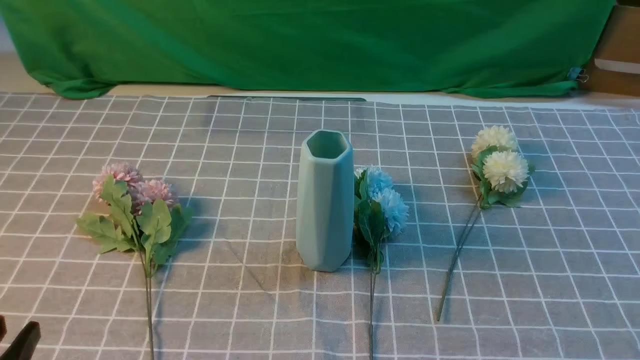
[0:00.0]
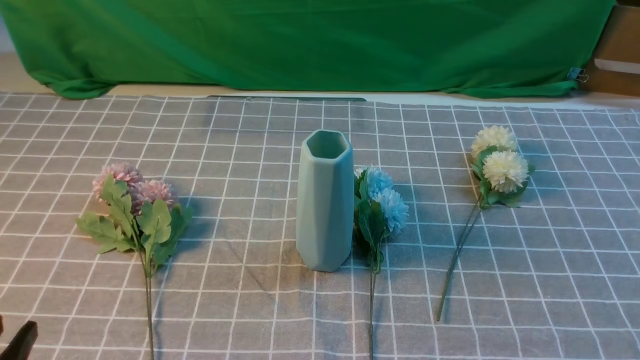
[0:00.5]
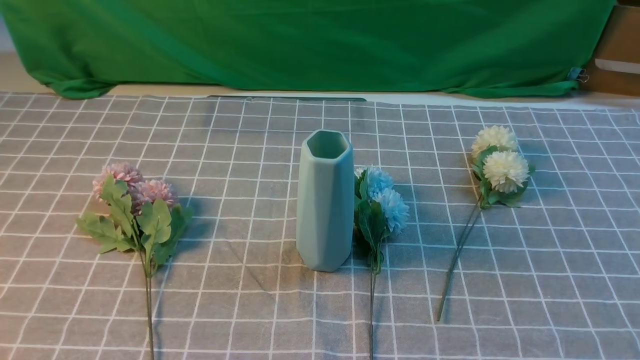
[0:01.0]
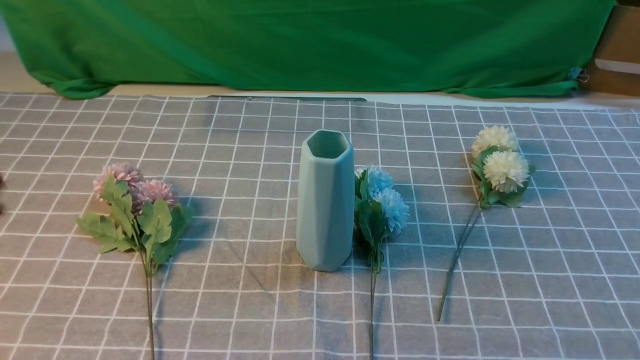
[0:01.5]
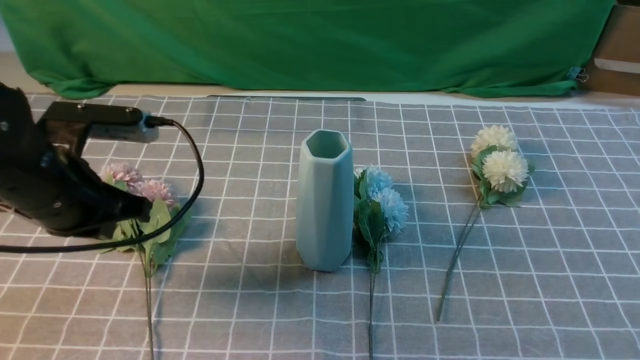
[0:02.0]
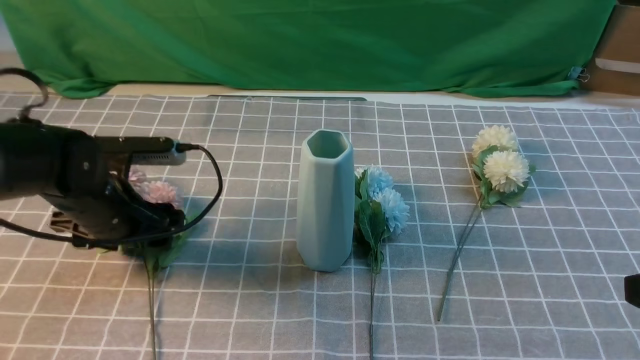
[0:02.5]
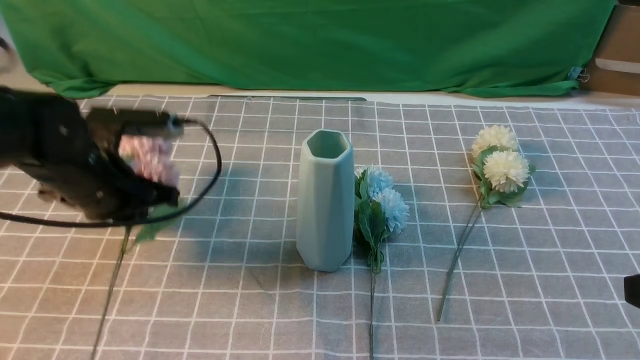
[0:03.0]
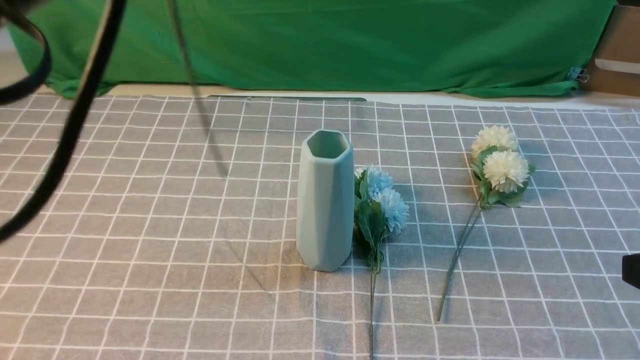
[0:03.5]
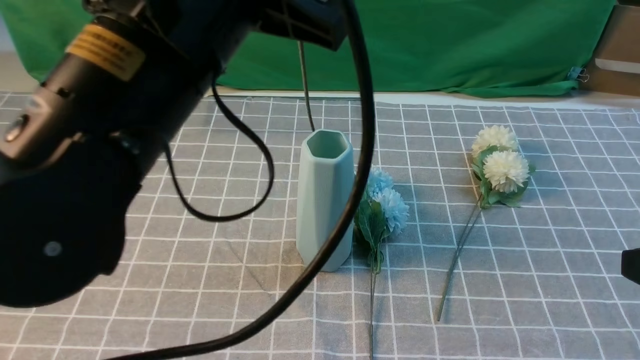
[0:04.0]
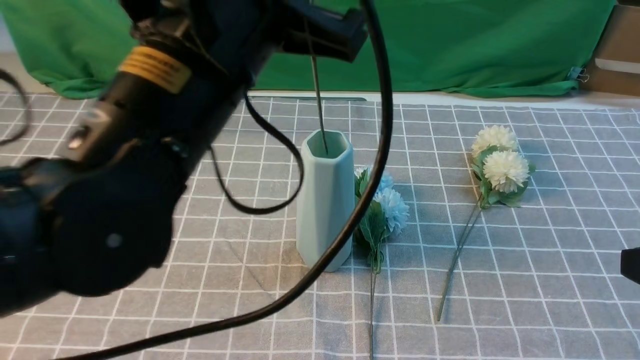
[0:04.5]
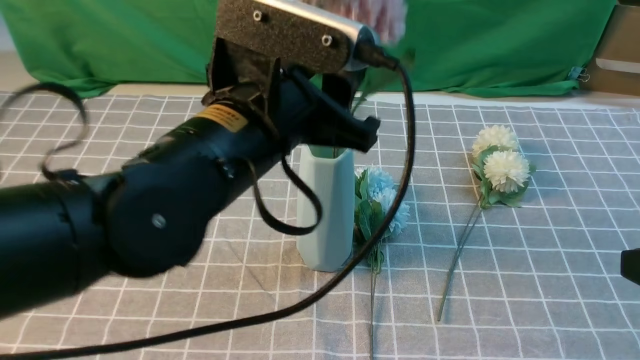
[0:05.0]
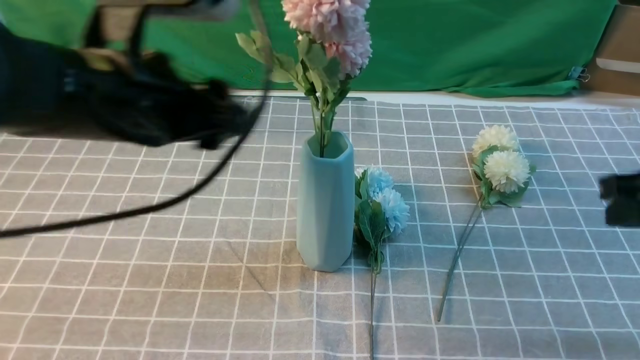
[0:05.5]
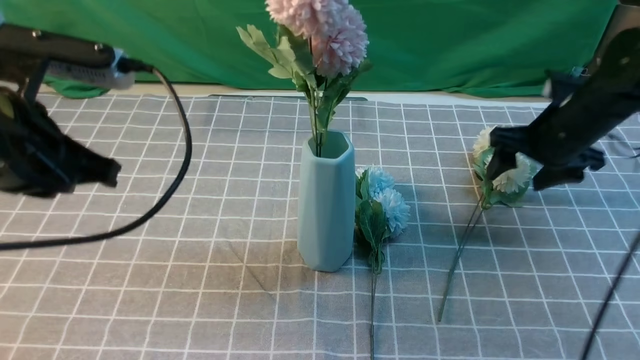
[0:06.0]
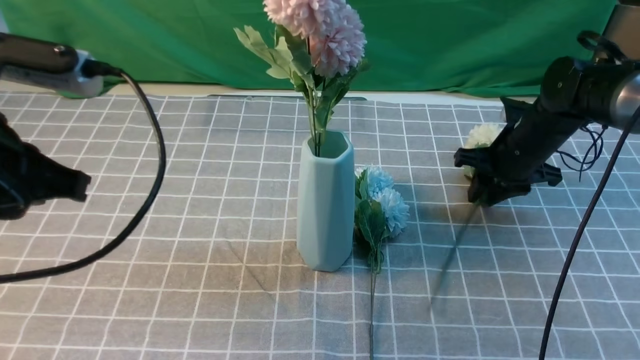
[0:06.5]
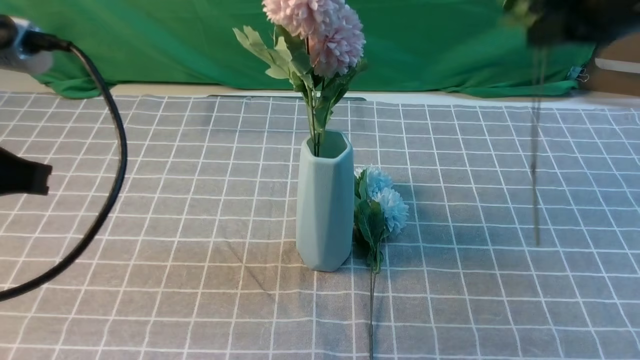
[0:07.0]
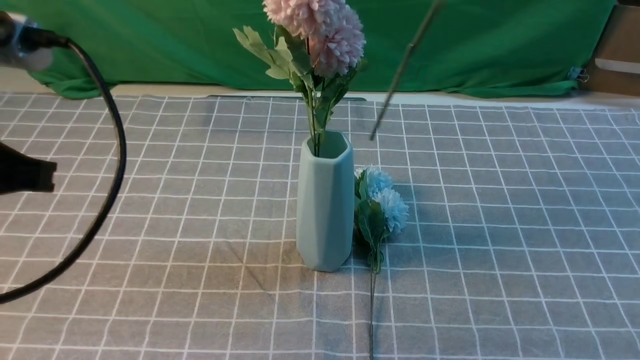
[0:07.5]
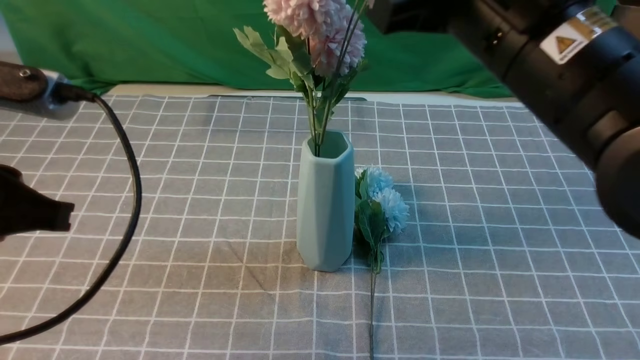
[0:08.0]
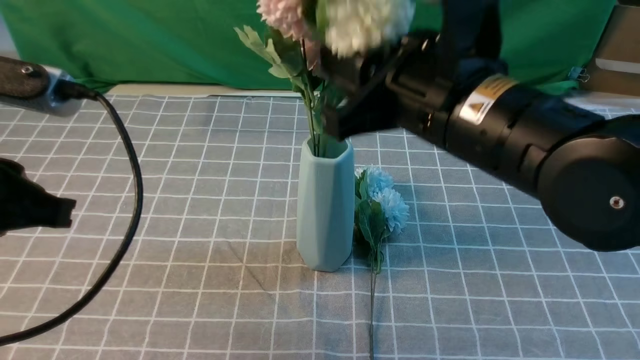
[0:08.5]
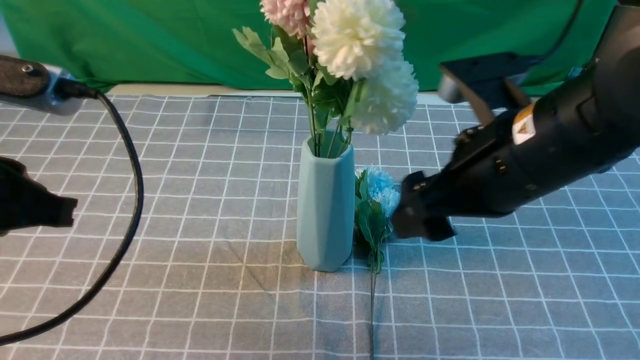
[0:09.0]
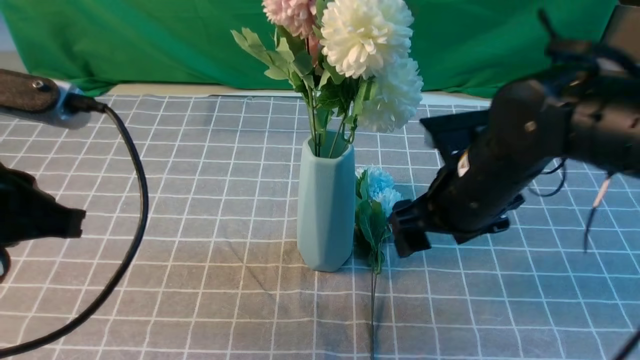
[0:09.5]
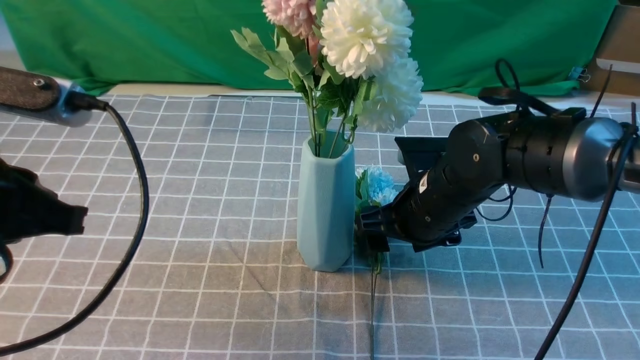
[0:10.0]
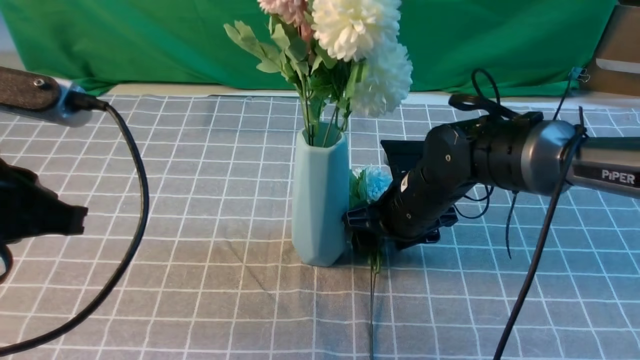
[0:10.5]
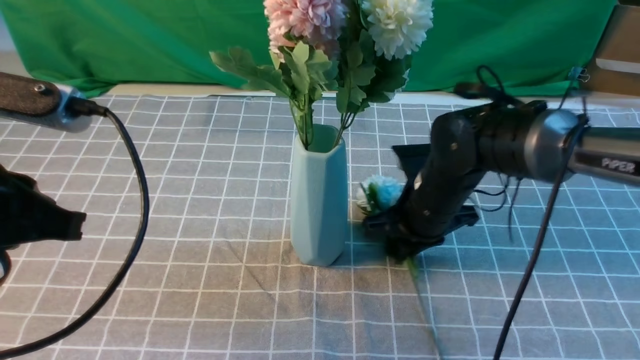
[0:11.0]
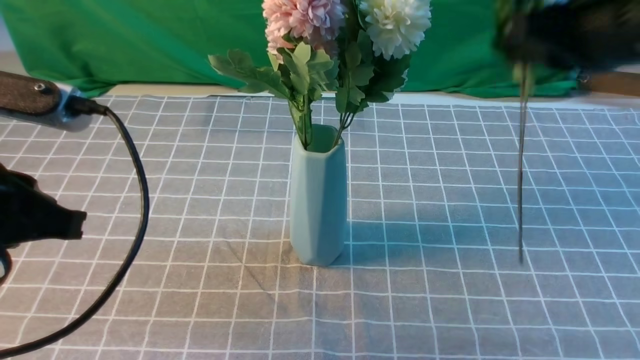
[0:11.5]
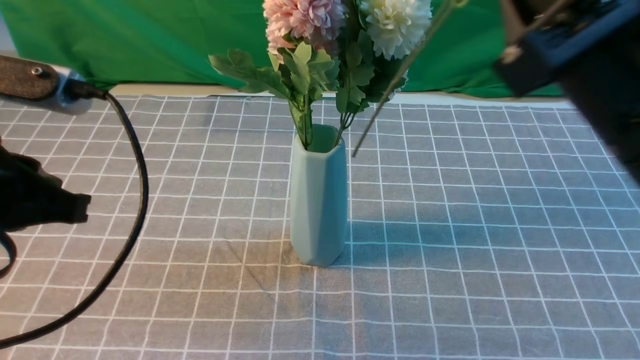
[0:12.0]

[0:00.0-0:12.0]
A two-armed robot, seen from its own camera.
Task of the whole recording: insert the flowers into the vase on the table with the grey tablecloth.
Step, 0:00.0 to 0:02.5: use the left arm to grab a bunch of fresh flowers.
Step, 0:03.0 to 0:05.0: use the left arm to insert the flowers into the vase.
Step, 0:05.5 to 0:06.5: use the right arm to grab a bunch of fresh flowers.
Step, 0:07.0 to 0:08.5: use the right arm to insert the flowers into the vase.
Step, 0:09.0 to 0:11.0: use the right arm to grab a bunch of fresh flowers.
0:00.0 to 0:02.0: The right gripper is displaced upward by approximately 10 cm, while the left gripper goes roughly 25 cm forward, and closes.
0:02.0 to 0:04.0: The left gripper heads upward, to the right and backward, covering about 25 cm, and opens, then closes again. Meanwhile the right gripper is displaced forward by approximately 5 cm.
0:04.0 to 0:06.0: The left gripper shifts roughly 15 cm to the left and downward, and opens, then closes again; the right gripper heads forward, covering some 30 cm, and opens its fingers.
0:06.0 to 0:08.0: The left gripper is displaced backward by some 5 cm, while the right gripper goes some 30 cm upward, backward and to the left, and closes up.
0:08.0 to 0:10.0: The right gripper heads downward and forward, covering roughly 25 cm, and opens its fingers.
0:10.0 to 0:12.0: The right gripper goes approximately 25 cm upward and backward, and closes.

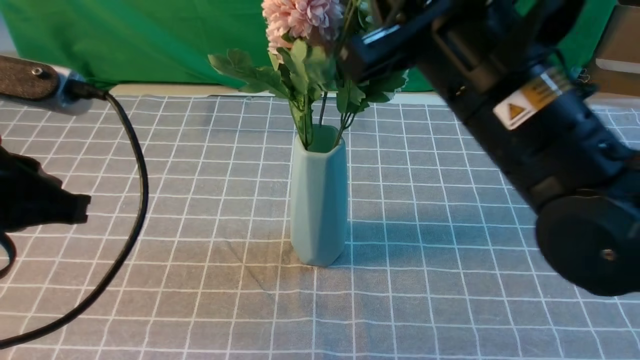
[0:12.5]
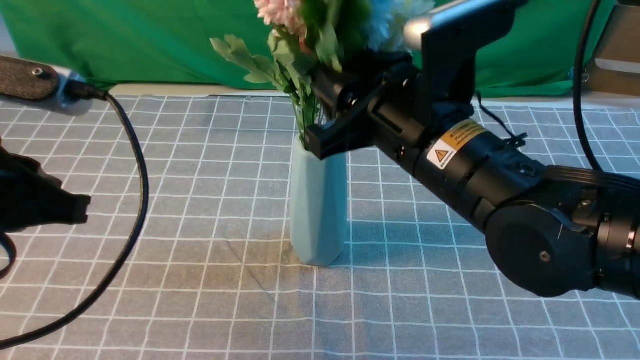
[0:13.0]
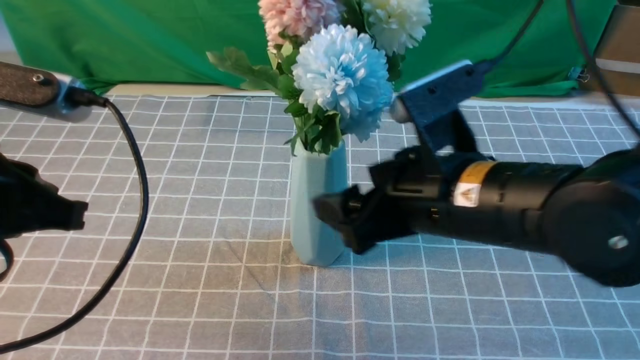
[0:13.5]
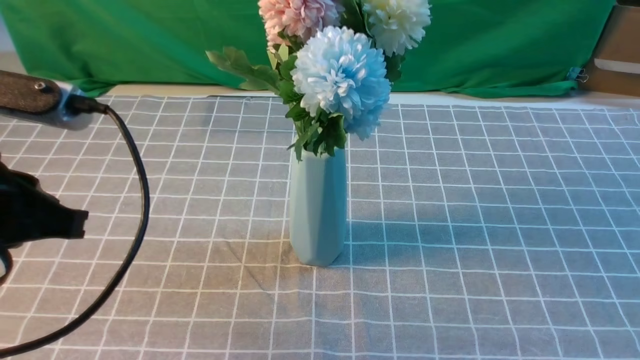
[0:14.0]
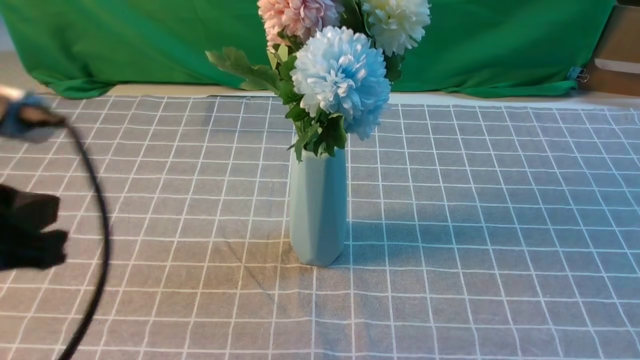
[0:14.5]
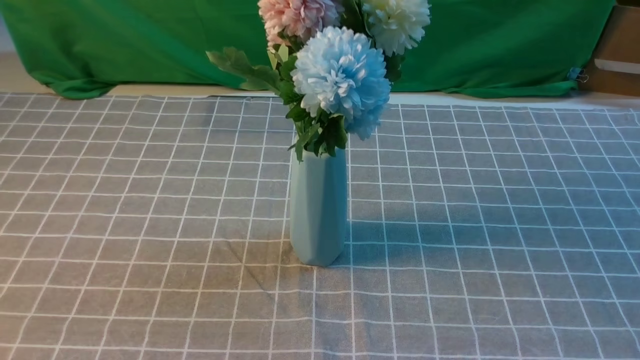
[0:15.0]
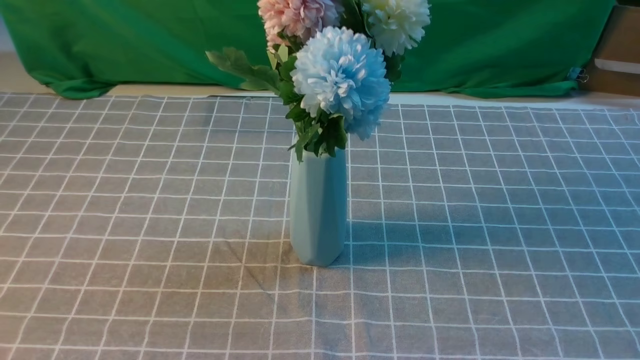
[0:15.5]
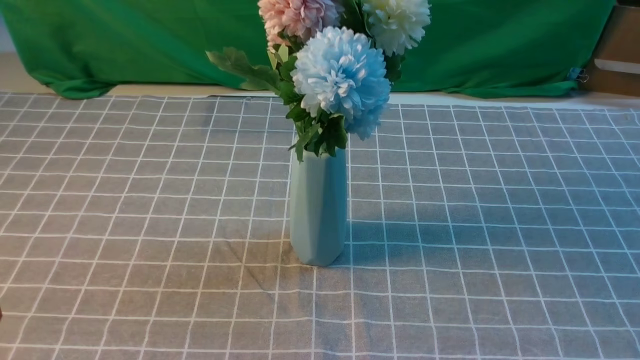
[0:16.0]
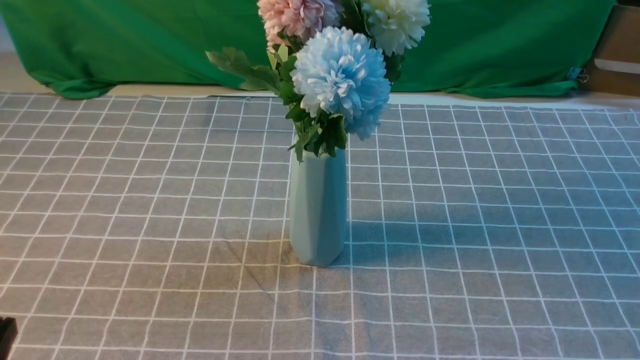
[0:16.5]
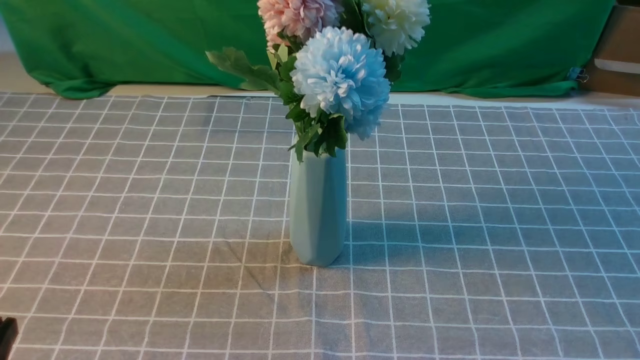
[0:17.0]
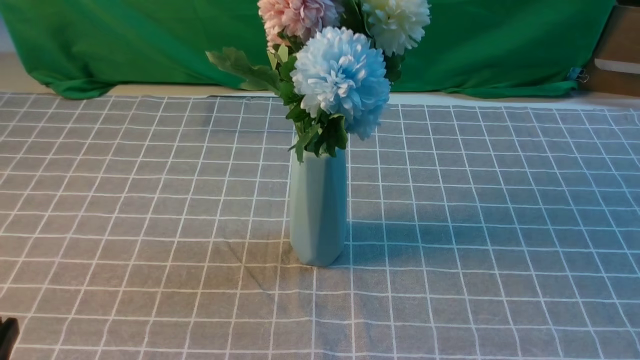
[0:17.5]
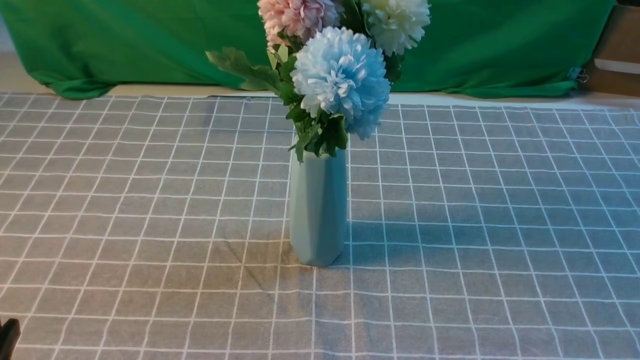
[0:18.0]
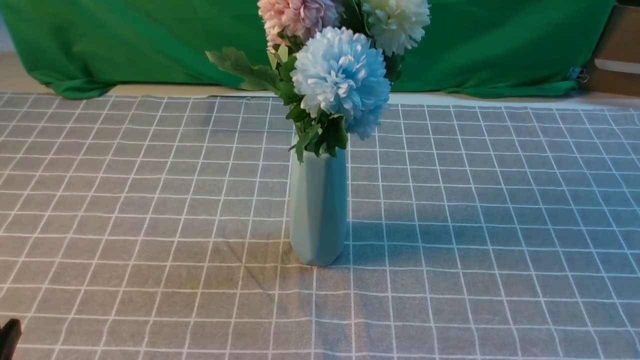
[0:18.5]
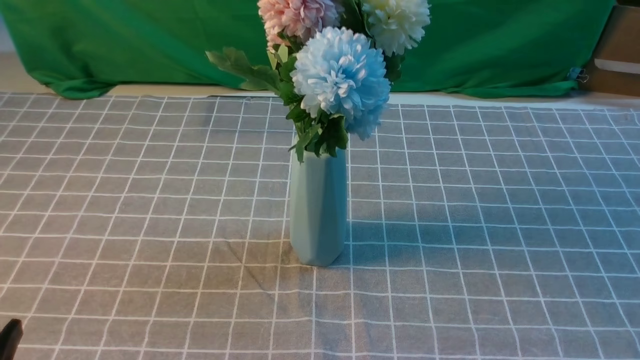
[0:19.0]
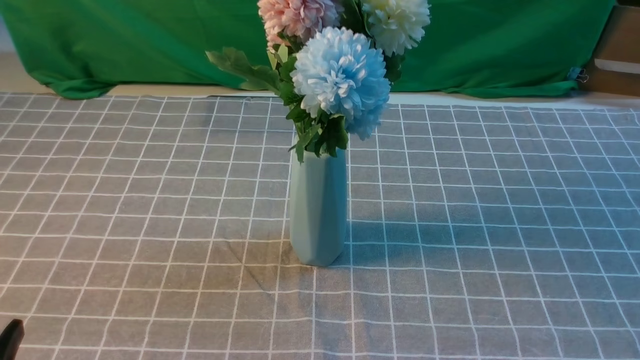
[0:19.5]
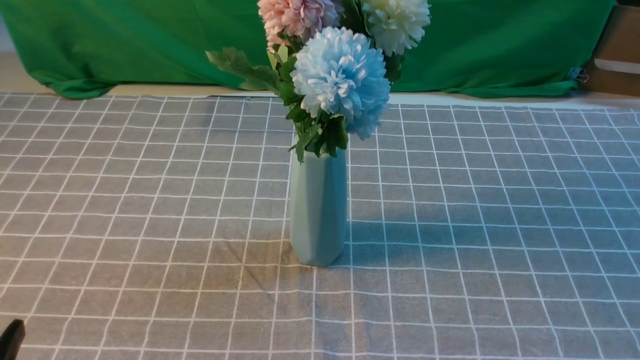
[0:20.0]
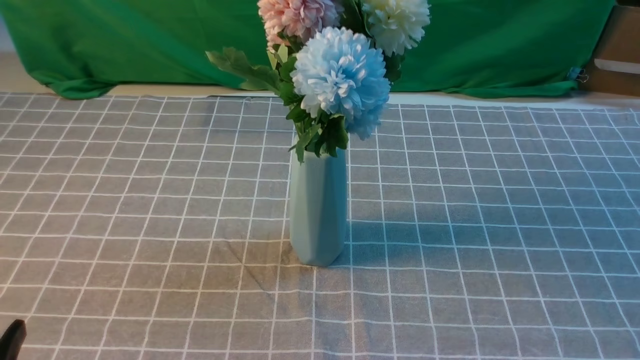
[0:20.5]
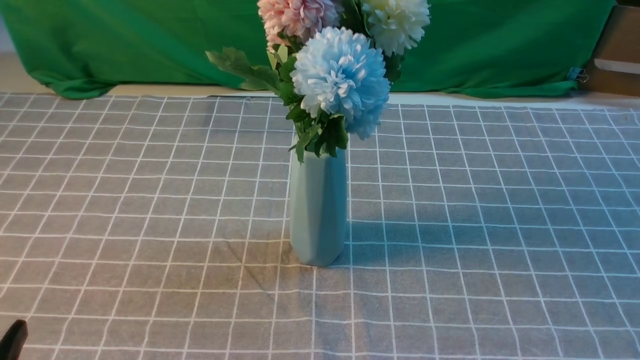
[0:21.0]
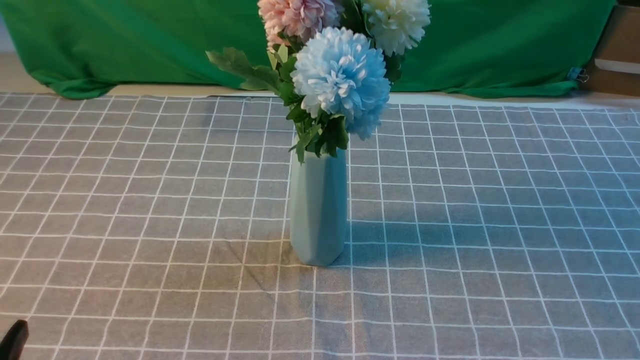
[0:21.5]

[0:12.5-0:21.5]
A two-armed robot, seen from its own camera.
Task of the whole recording: insert the flowers into the vase on the table with the grey tablecloth.
0:12.5 to 0:14.5: The left gripper goes approximately 5 cm backward, while the right gripper travels backward and to the right by approximately 30 cm, and opens, then closes again.
0:14.5 to 0:17.0: The left gripper heads downward and backward, covering approximately 15 cm.
0:19.5 to 0:21.5: Neither gripper changes place.
